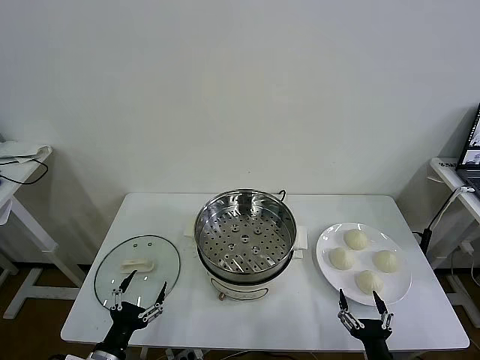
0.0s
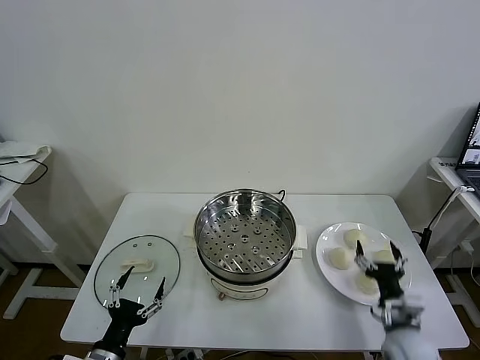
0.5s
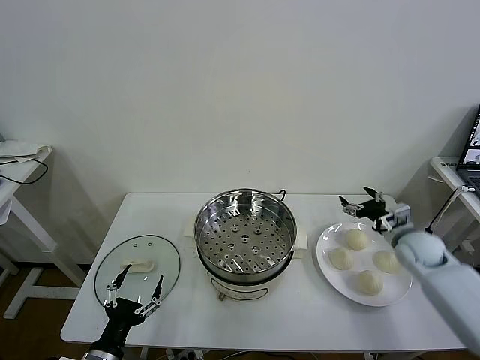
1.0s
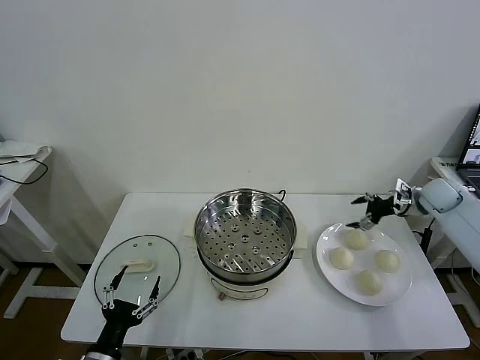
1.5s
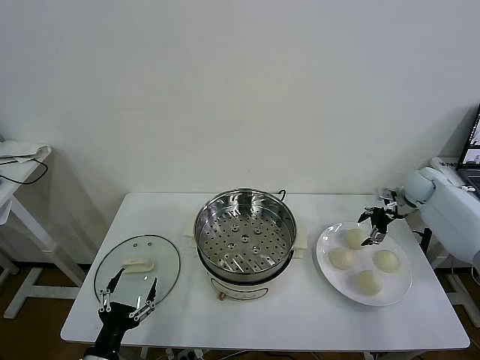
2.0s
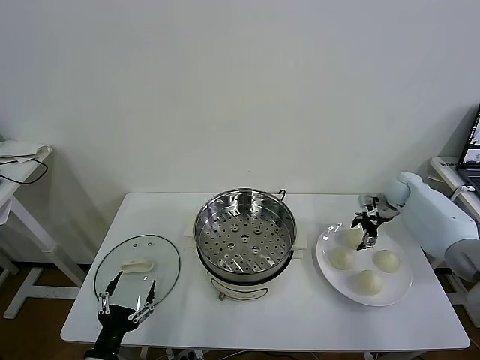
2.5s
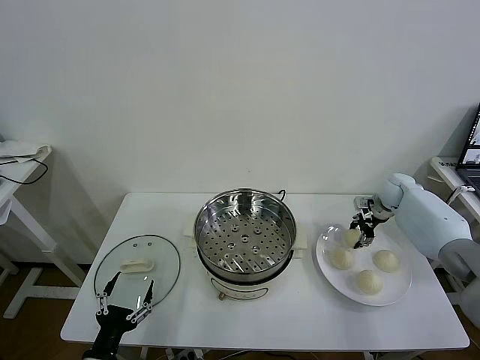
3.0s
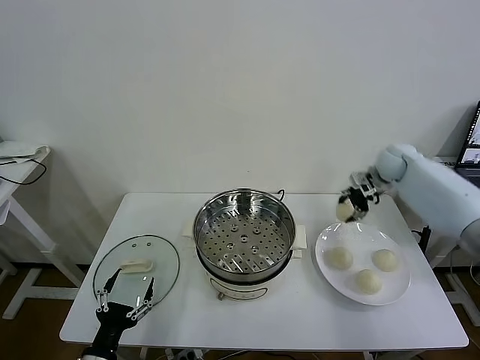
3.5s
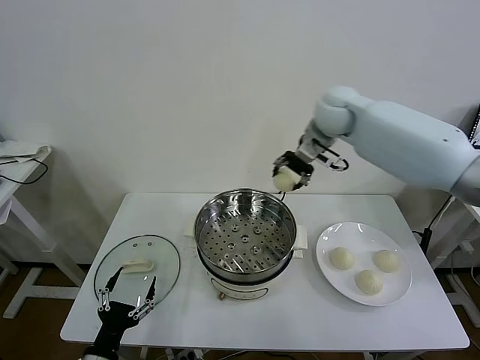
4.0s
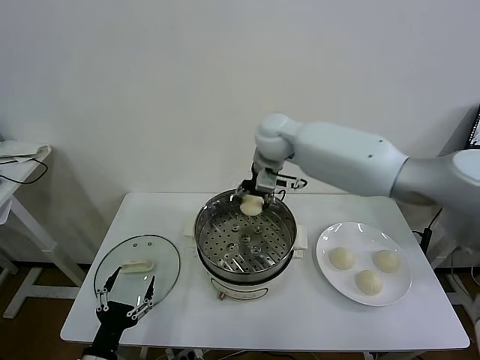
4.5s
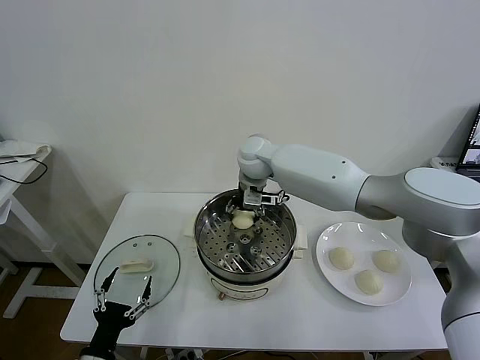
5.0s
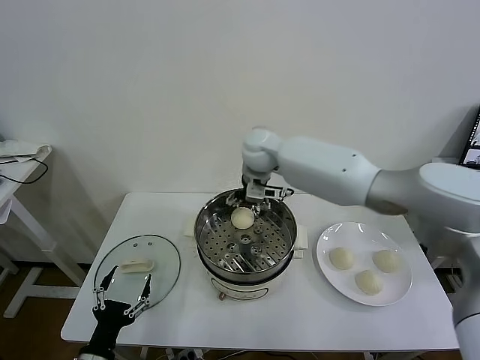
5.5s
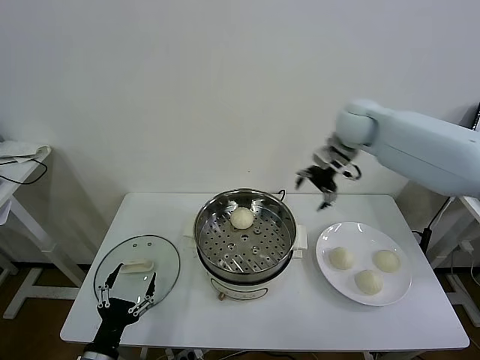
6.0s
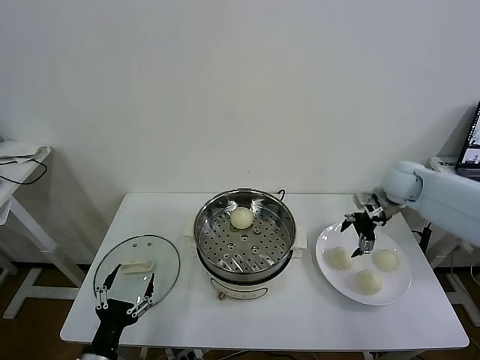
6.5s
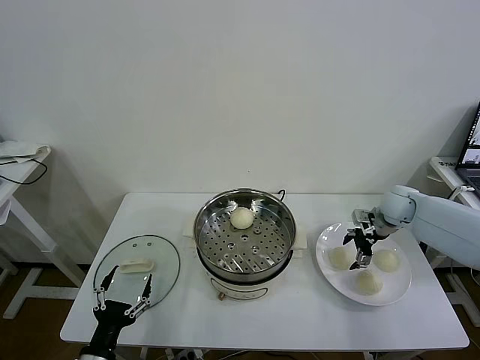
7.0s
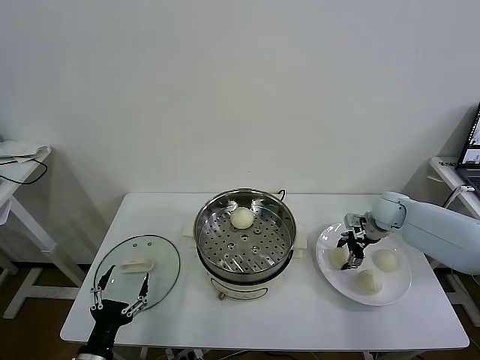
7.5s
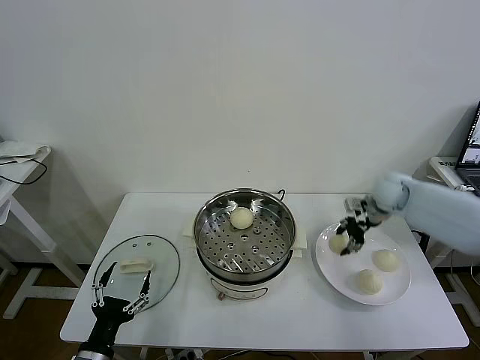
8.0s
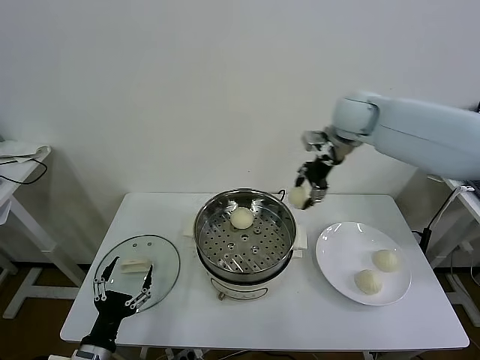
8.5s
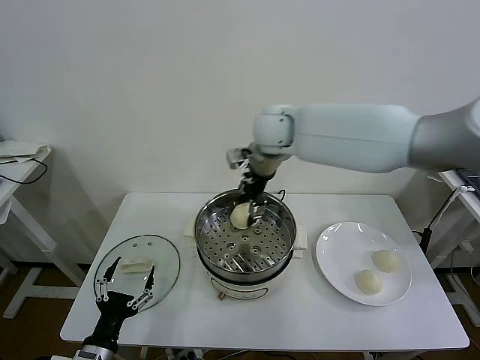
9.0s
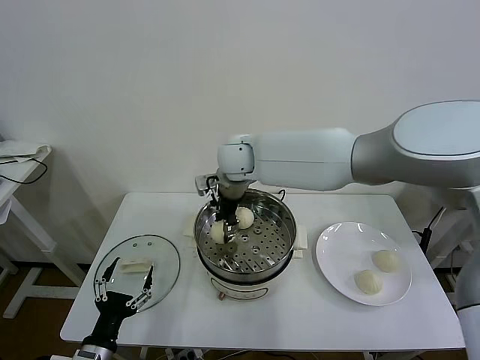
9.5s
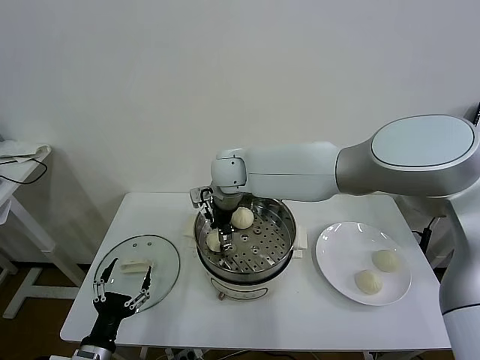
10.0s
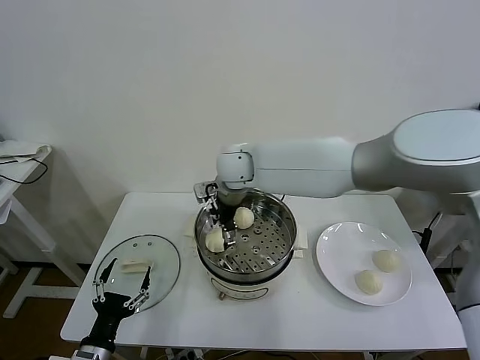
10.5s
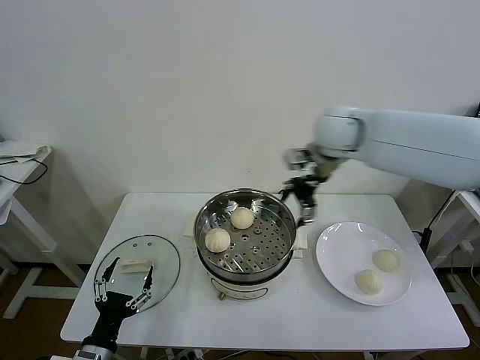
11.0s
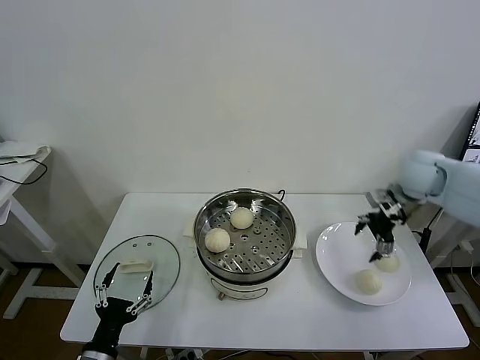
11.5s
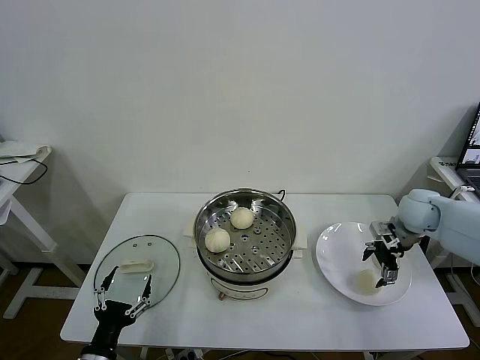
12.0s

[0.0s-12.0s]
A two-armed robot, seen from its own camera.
Task of the whole recording: take steamed baozi put them in steamer then cover it.
Step, 0.0s to 3.0s: Grasp the baozi in the plate with right gripper.
Step, 3.5s to 5.0s: Place the baozi on the steamer with right gripper.
Step, 5.5s to 7.5s: Grasp the baozi in the plate with right gripper.
Step, 8.0s to 10.0s: Place the baozi on the steamer with right gripper.
2.0s to 4.0s: The right gripper heads to the left and upward, covering approximately 40 cm, and closes up.
4.0s to 6.0s: The right gripper shifts about 15 cm to the right, and opens up.
6.0s to 8.0s: The right gripper is displaced downward and to the right by roughly 10 cm, and closes up.
8.0s to 10.0s: The right gripper is displaced to the left by about 40 cm.
10.0s to 12.0s: The right gripper is displaced to the right by approximately 40 cm, and opens.

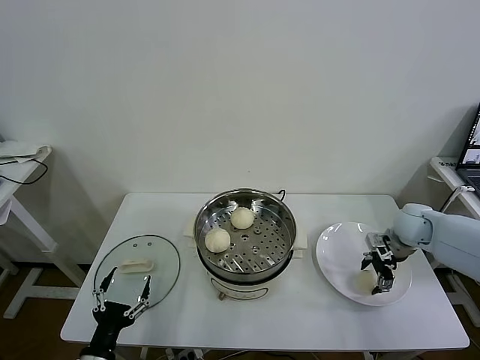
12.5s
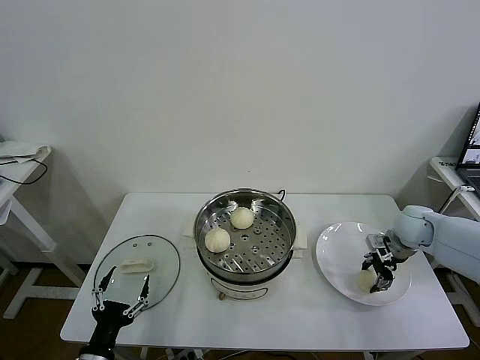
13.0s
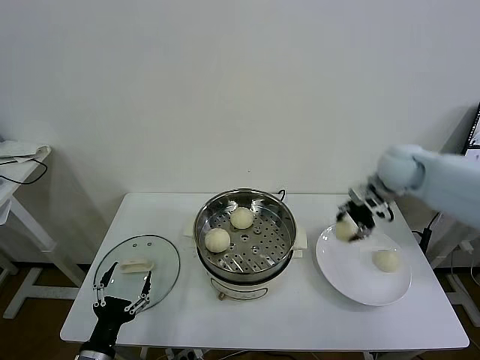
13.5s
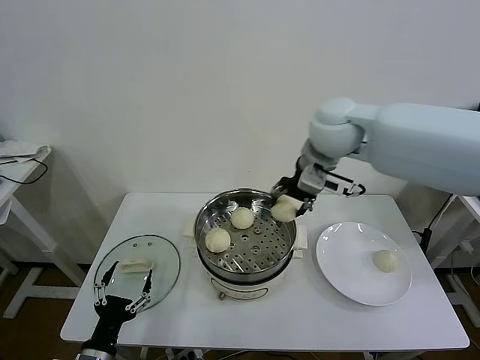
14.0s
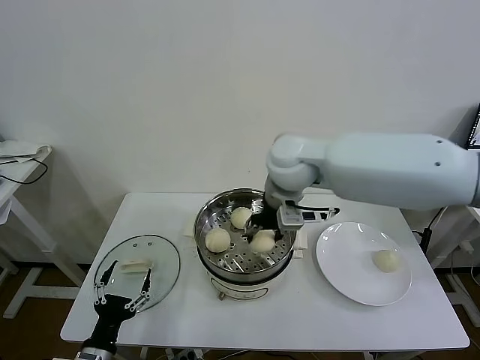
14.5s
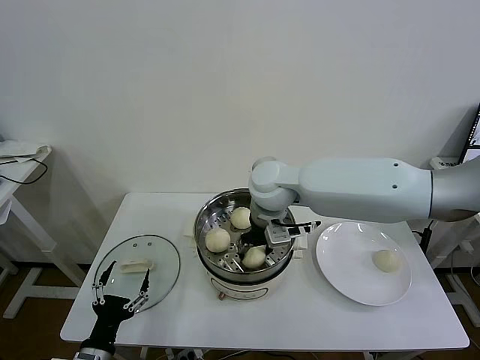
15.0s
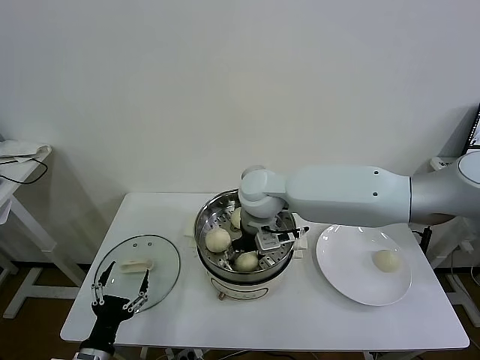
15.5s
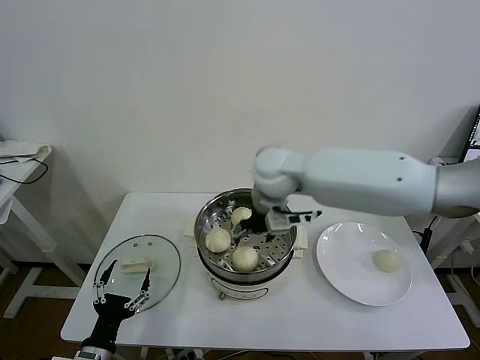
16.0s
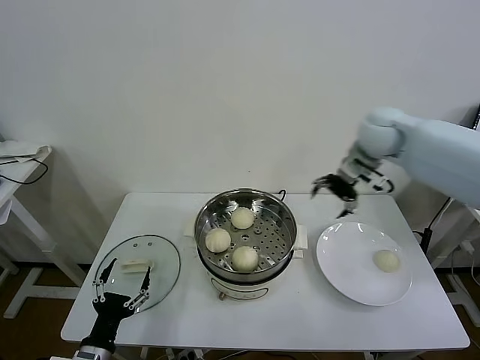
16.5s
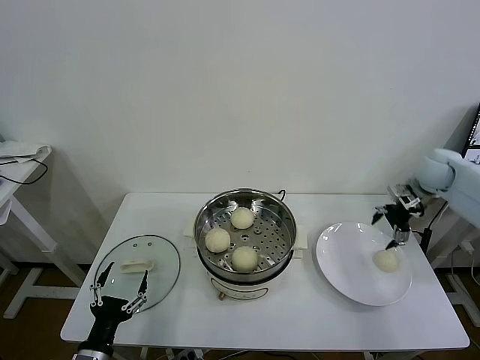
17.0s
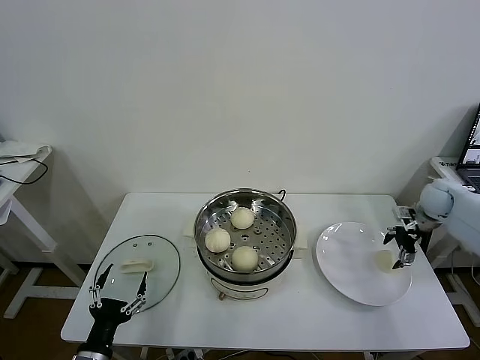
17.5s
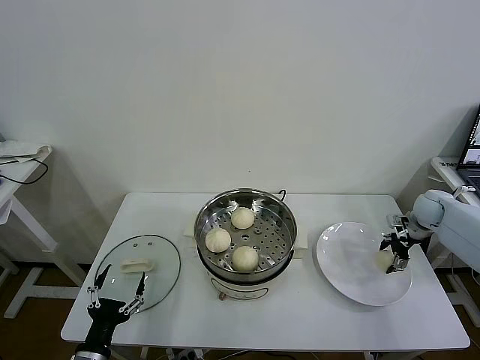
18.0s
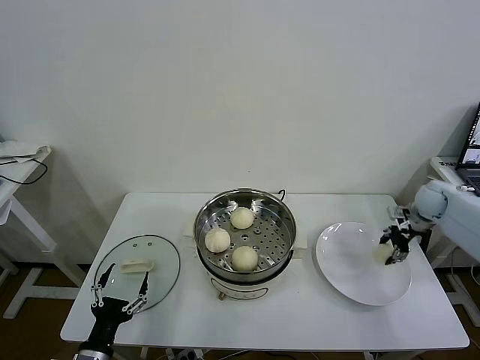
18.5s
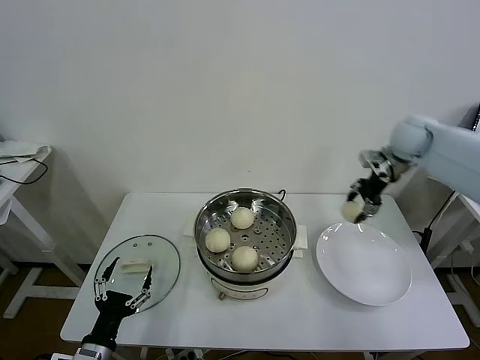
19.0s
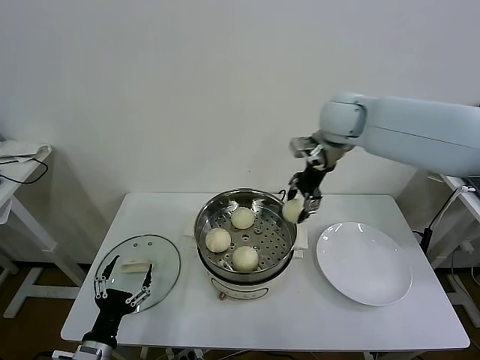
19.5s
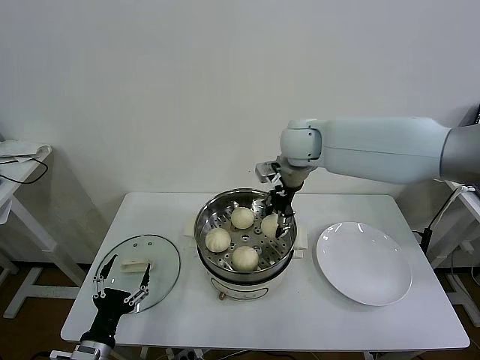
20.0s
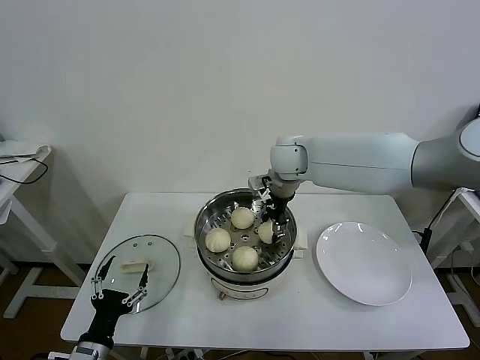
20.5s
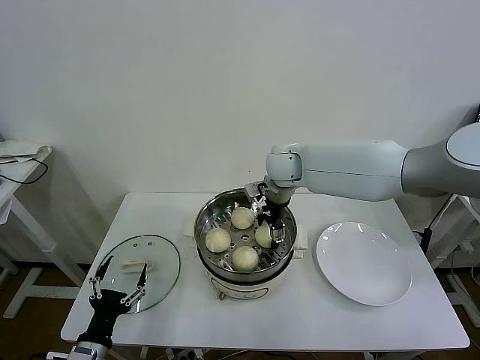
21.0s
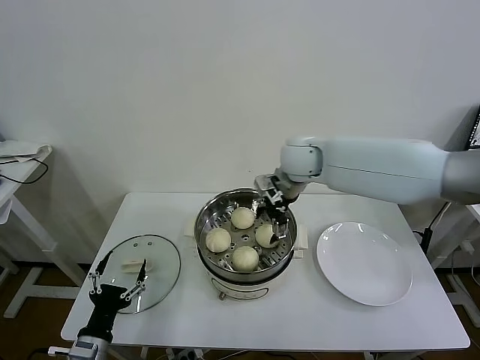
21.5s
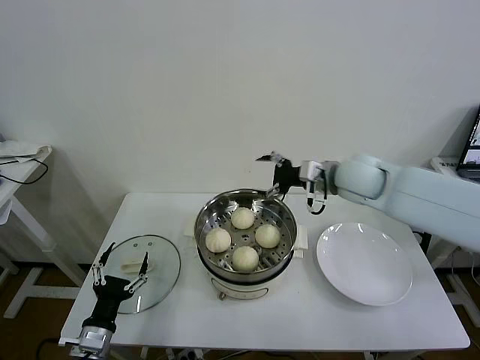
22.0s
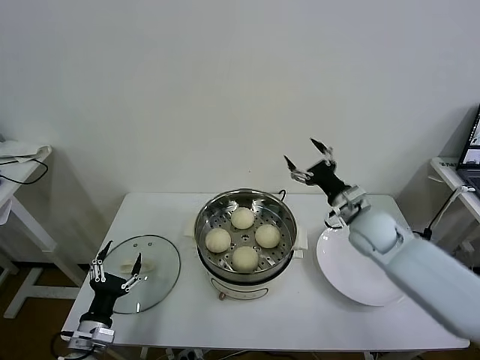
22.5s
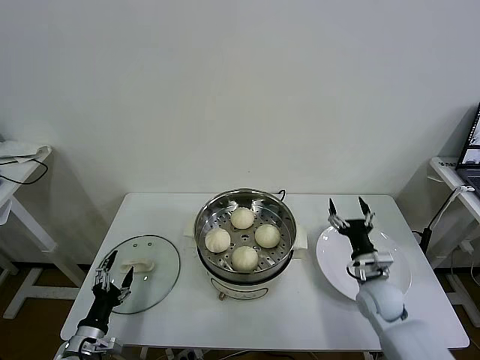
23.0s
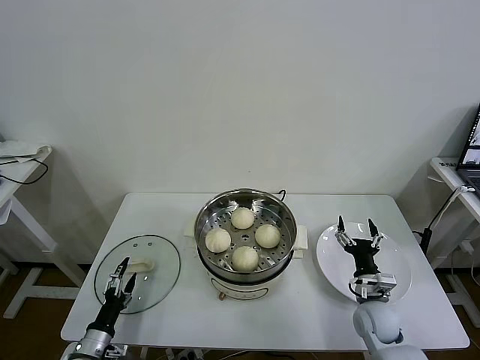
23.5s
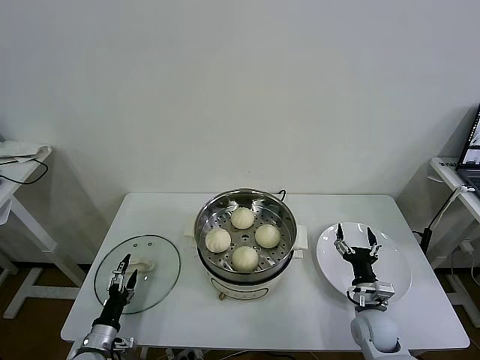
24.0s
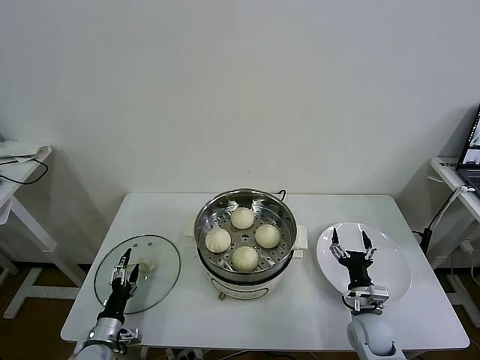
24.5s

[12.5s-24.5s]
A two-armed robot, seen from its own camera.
Task of the whole recording: take steamed baozi put them in steamer then cover it.
Step, 13.5s to 15.5s: Place the baozi on the steamer with right gripper.
Step, 16.0s to 18.0s: Grasp the baozi in the plate with right gripper.
Step, 18.5s to 21.0s: Place the baozi on the steamer with right gripper.
12.5s to 14.5s: The right gripper heads to the left and upward, covering roughly 40 cm, and closes up.
14.5s to 16.5s: The right gripper moves to the right, some 25 cm, and opens its fingers.
16.5s to 18.5s: The right gripper travels downward and to the right by about 25 cm, and closes up.
18.5s to 20.5s: The right gripper is displaced to the left by about 40 cm.
20.5s to 22.5s: The right gripper moves to the right, downward and backward, approximately 25 cm, and opens up; the left gripper shifts by about 5 cm.
22.5s to 24.5s: The left gripper moves downward, about 10 cm; the right gripper travels downward and backward by about 25 cm.

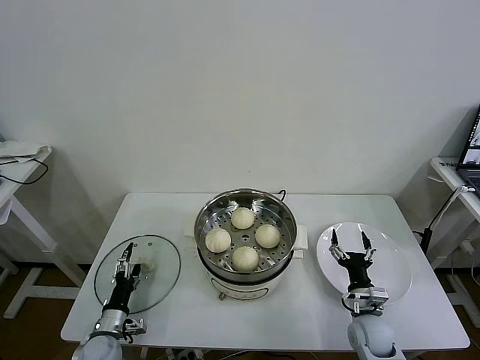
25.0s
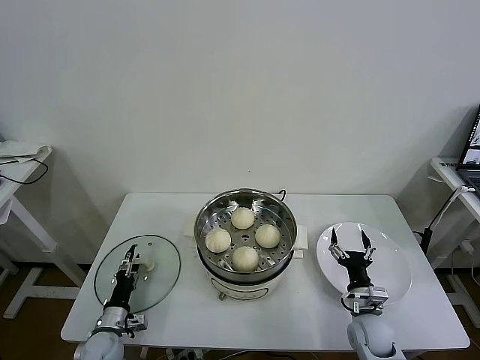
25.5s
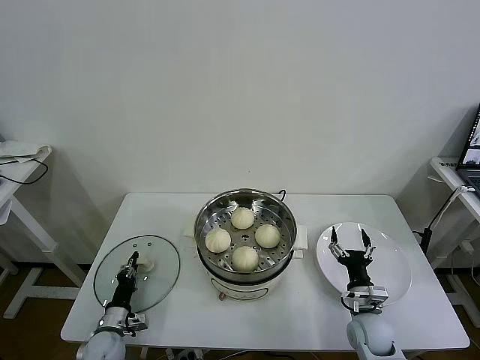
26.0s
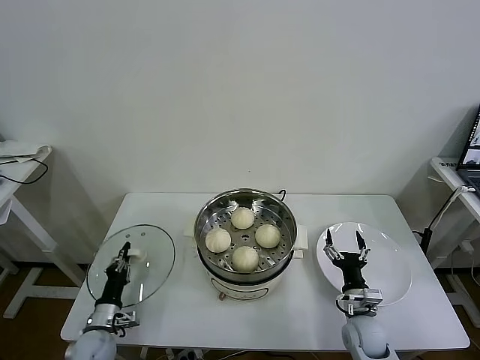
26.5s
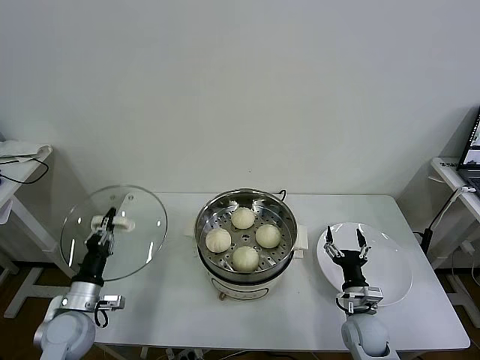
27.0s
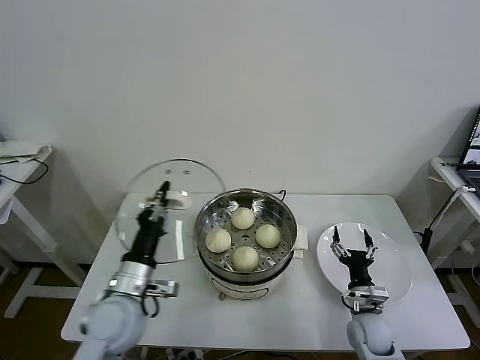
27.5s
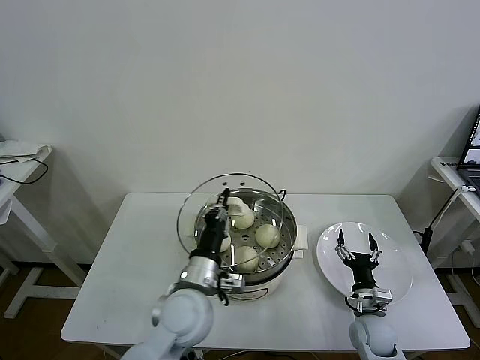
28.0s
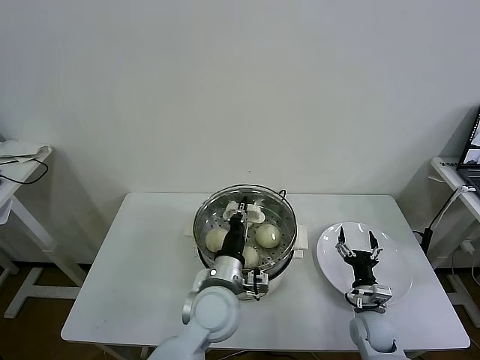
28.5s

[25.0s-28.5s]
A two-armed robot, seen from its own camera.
Task of the whole recording: take steamed baozi put them in steamer then cover it.
25.0s to 27.0s: The left gripper is displaced upward by about 10 cm, and closes its fingers.
27.0s to 28.5s: The left gripper is displaced to the right by about 30 cm.
